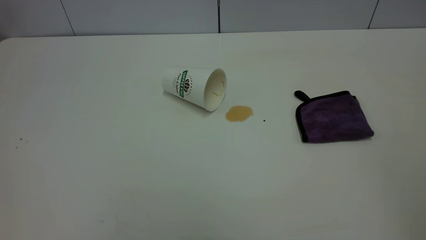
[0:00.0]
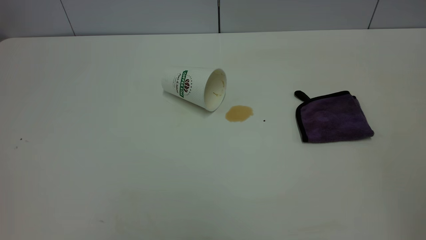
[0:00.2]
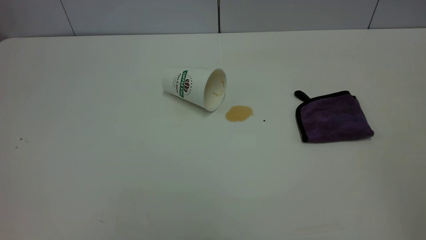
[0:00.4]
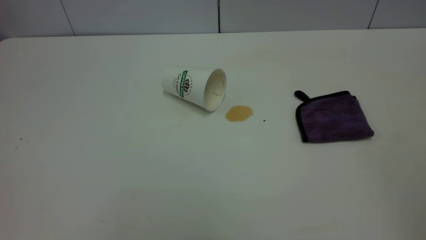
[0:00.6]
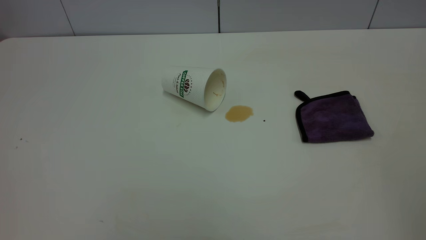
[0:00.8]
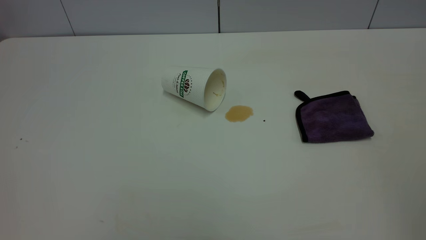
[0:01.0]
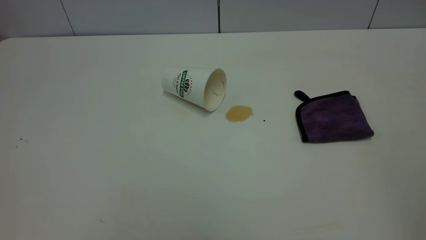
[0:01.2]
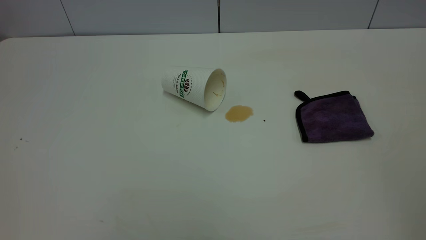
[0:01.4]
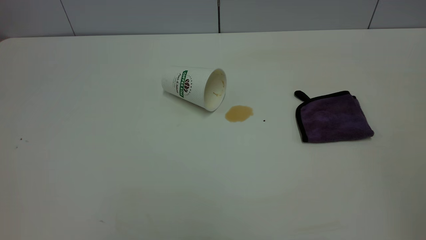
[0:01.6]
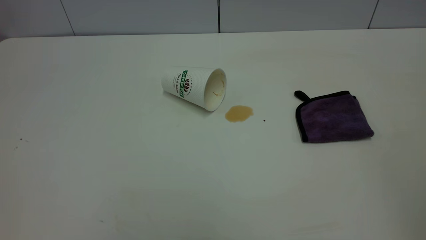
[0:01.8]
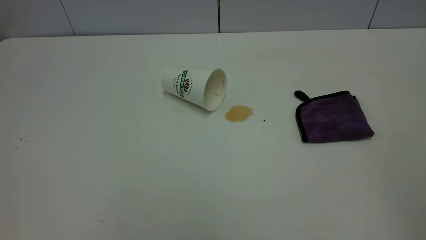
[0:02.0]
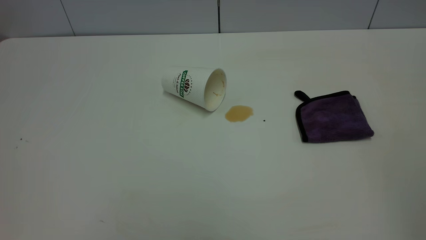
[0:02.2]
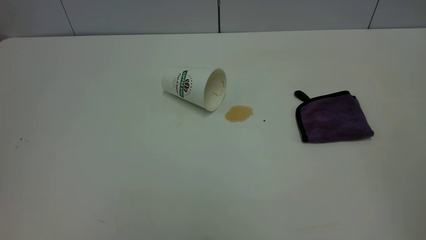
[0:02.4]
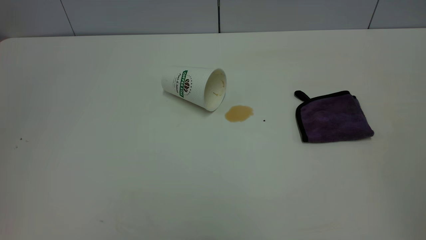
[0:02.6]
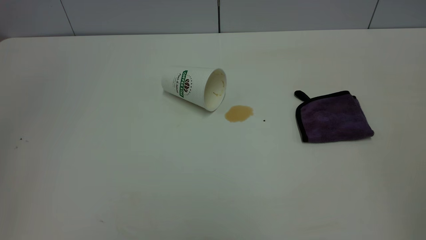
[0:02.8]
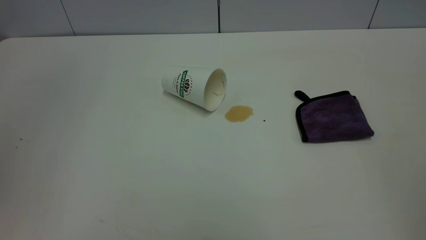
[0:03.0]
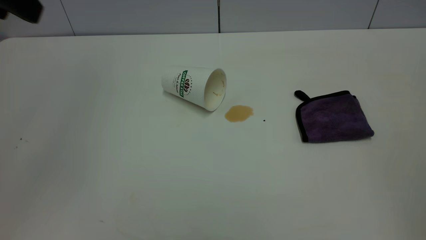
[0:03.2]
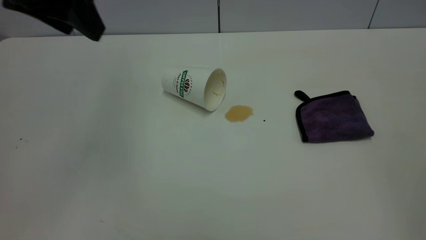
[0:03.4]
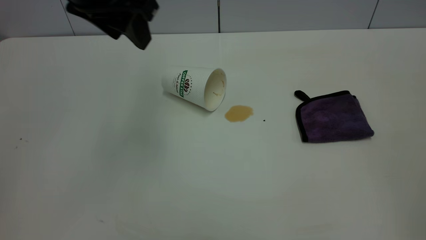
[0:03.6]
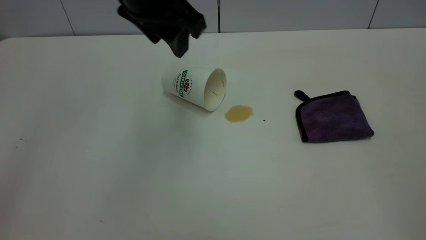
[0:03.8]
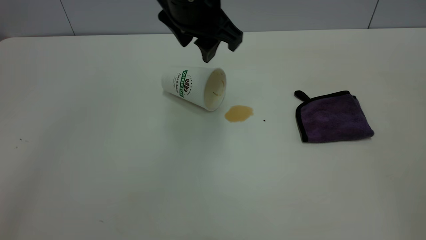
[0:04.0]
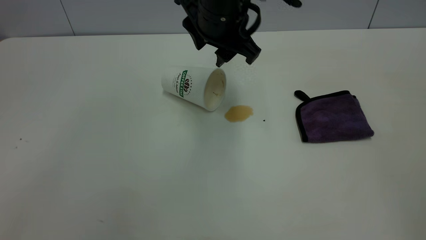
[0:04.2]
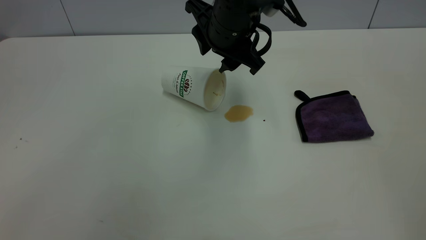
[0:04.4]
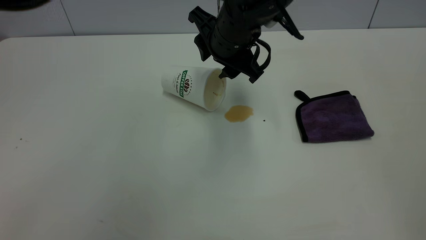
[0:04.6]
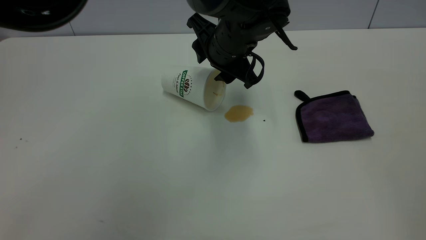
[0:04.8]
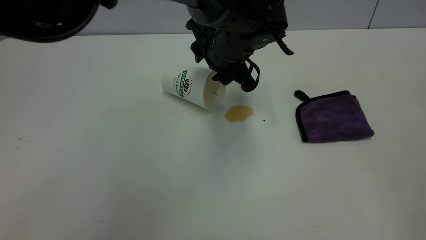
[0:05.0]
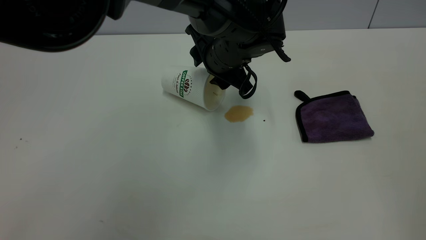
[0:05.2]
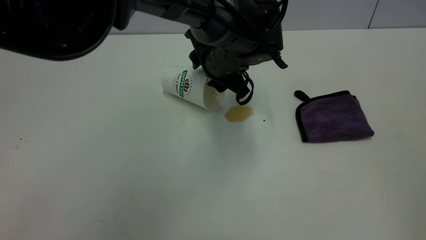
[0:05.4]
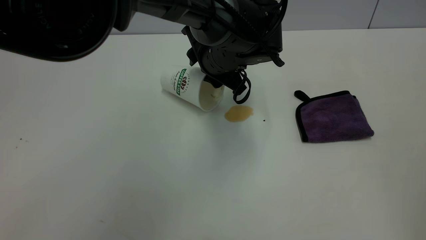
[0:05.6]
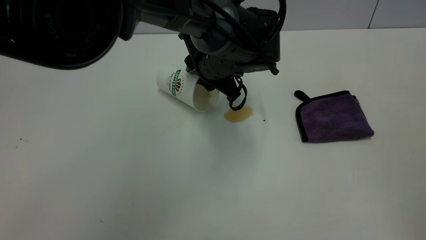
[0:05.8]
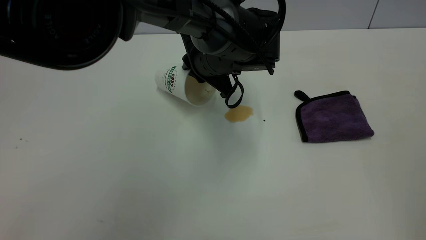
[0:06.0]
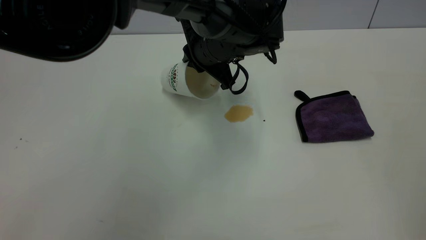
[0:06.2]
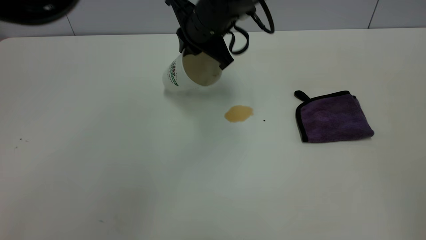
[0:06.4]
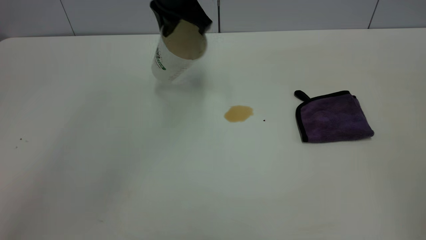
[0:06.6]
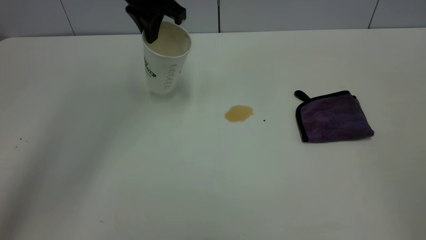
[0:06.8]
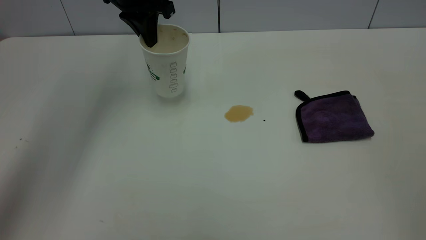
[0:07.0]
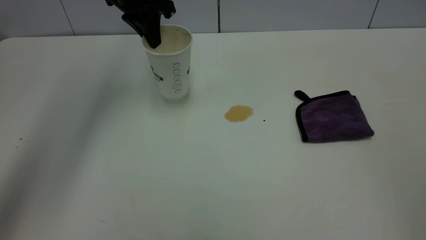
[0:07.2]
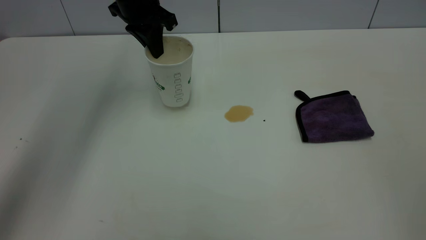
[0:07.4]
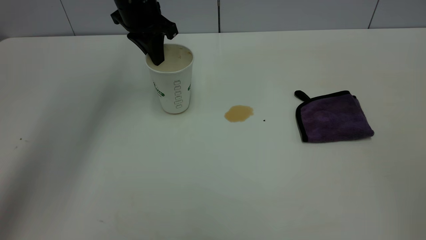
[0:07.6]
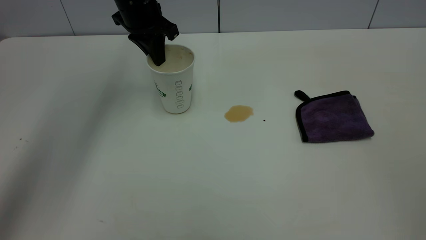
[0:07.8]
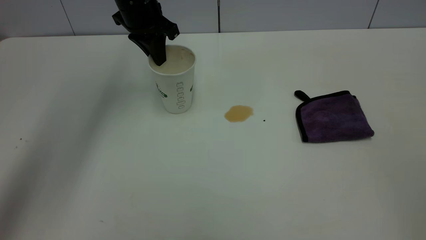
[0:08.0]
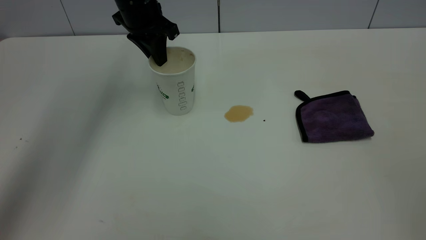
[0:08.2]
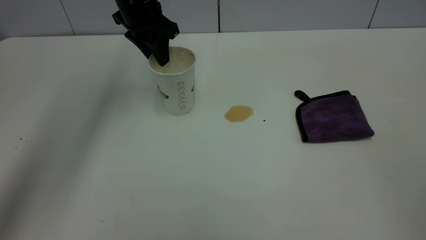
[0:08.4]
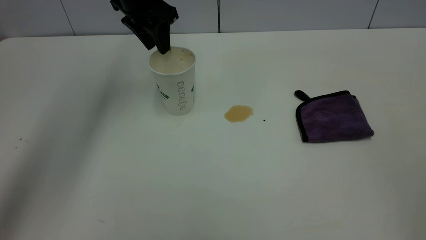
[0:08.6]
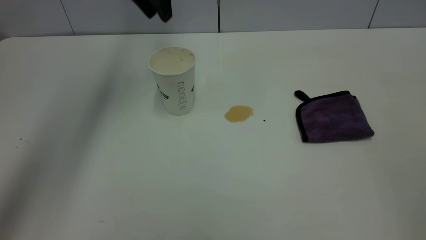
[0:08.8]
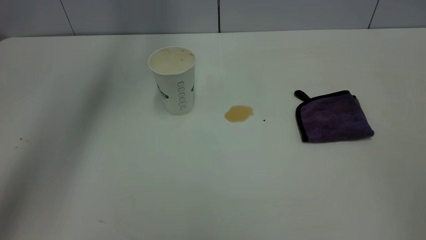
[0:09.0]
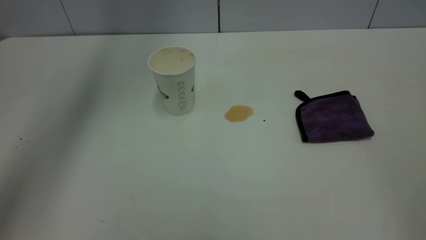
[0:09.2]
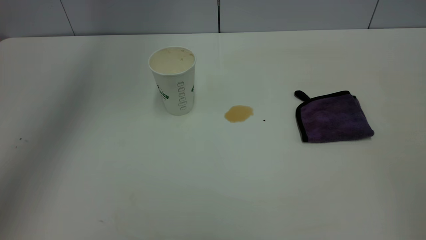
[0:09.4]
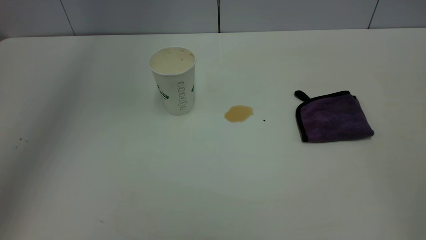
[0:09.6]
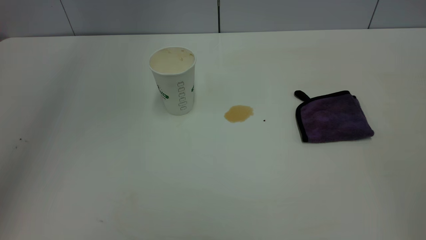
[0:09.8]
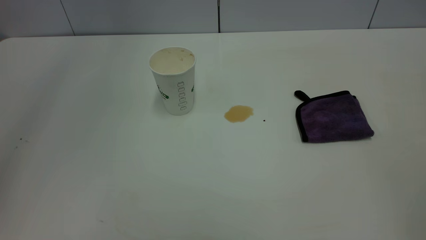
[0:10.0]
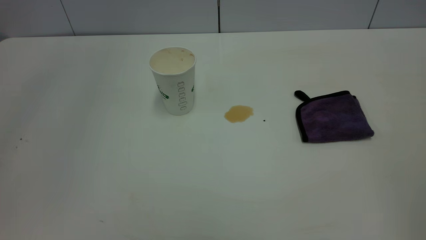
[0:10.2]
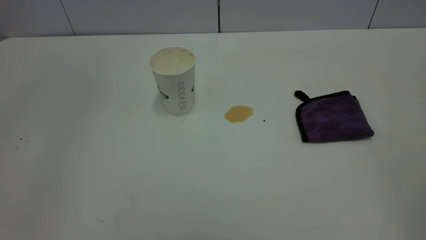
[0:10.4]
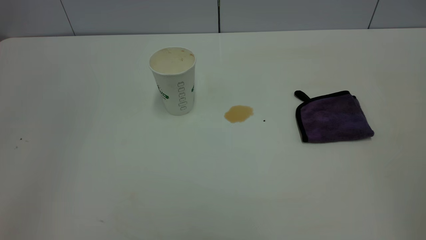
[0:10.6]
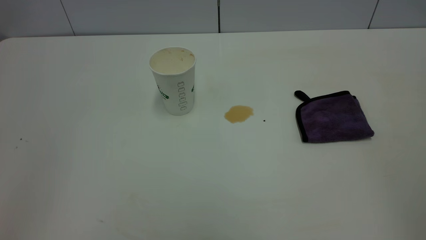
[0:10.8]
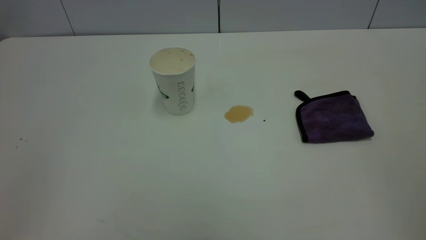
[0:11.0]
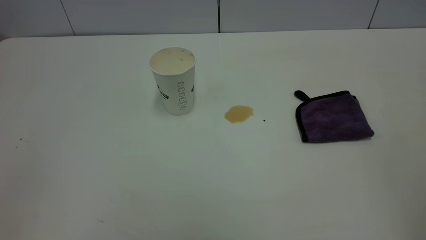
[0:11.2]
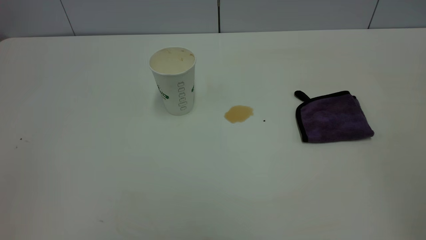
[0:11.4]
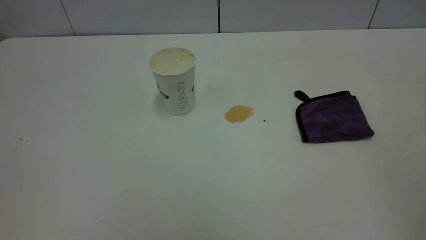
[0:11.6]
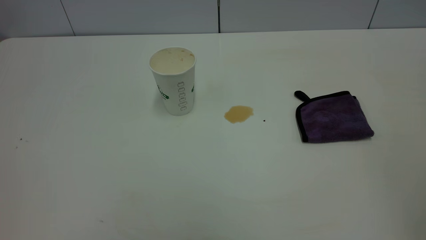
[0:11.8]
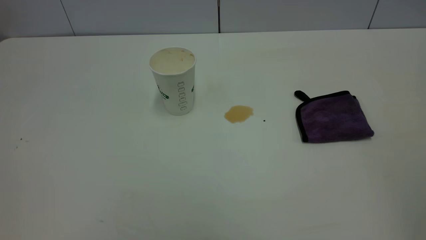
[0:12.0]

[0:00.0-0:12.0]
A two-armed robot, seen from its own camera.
Task of the whole recording: the left gripper pick up the fallen cup and place it upright, the right gripper grasp the purple rag and wipe the tea stain on the table, the right gripper put the purple rag back in its original position.
Step, 0:00.0 to 0:08.6: Stand the paper cup upright.
0:00.0 to 0:01.6: Both grippers stay about where they are.
0:03.0 to 0:04.4: The left gripper moves to the right, downward and forward, roughly 40 cm.
0:04.4 to 0:06.0: The left gripper heads downward, covering roughly 5 cm, and closes.
0:06.0 to 0:07.6: The left gripper moves to the left, forward and upward, approximately 20 cm.
0:07.6 to 0:09.0: The left gripper is displaced upward by roughly 15 cm, and opens its fingers.
0:09.0 to 0:10.4: The left gripper shifts some 35 cm backward.

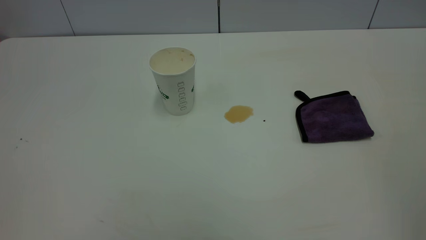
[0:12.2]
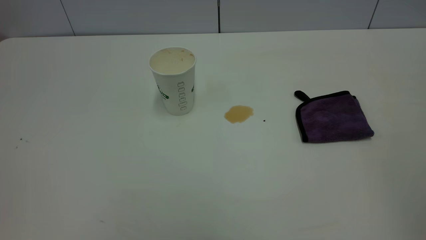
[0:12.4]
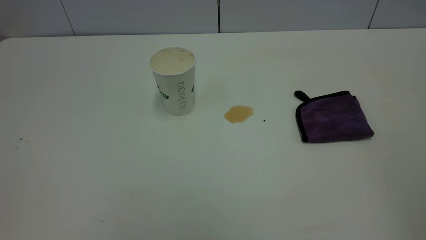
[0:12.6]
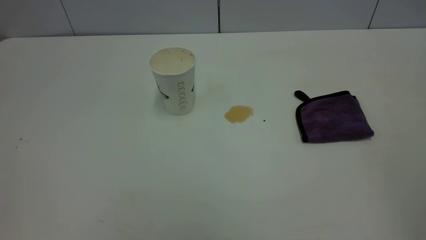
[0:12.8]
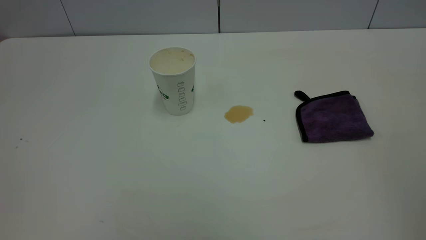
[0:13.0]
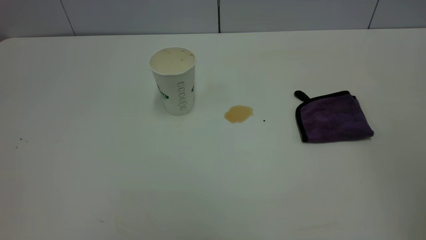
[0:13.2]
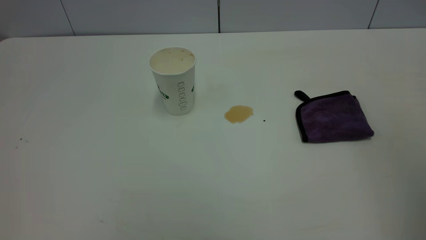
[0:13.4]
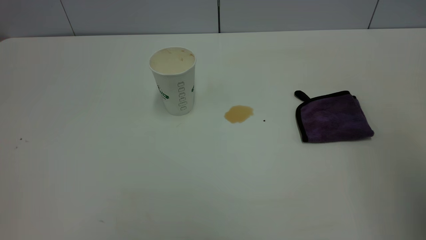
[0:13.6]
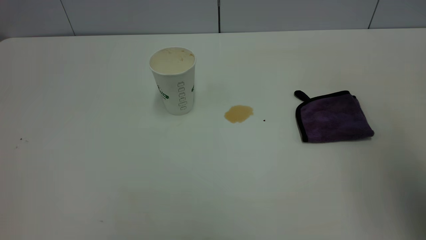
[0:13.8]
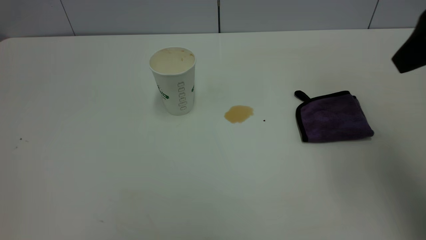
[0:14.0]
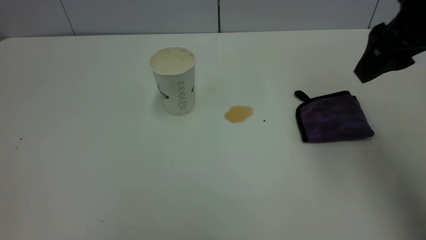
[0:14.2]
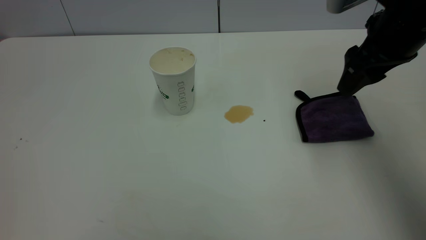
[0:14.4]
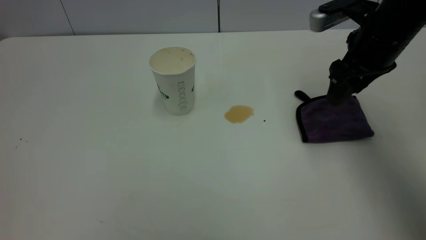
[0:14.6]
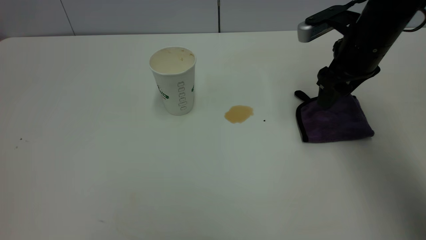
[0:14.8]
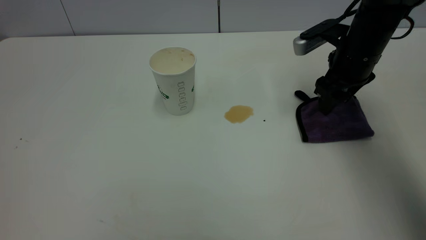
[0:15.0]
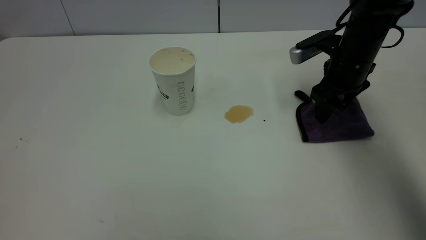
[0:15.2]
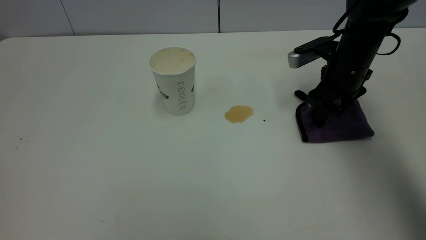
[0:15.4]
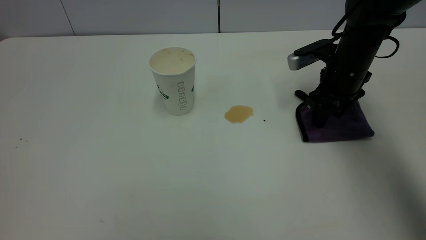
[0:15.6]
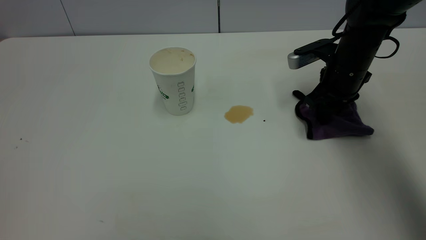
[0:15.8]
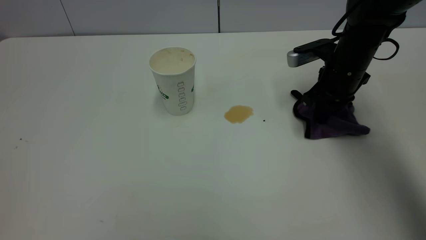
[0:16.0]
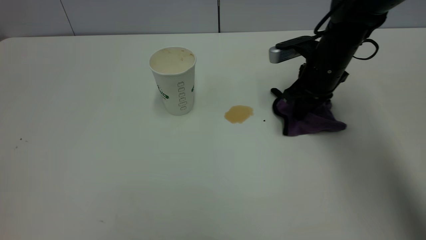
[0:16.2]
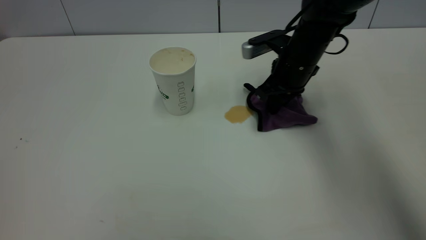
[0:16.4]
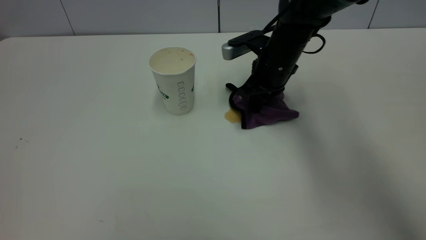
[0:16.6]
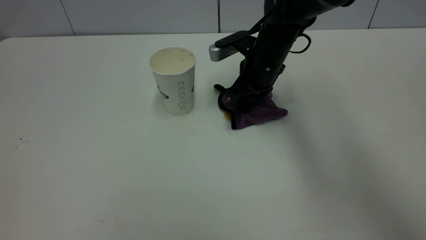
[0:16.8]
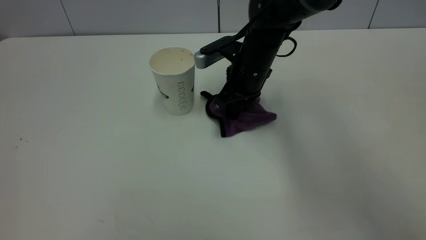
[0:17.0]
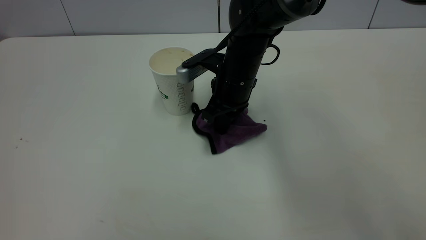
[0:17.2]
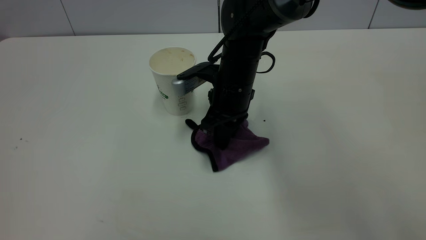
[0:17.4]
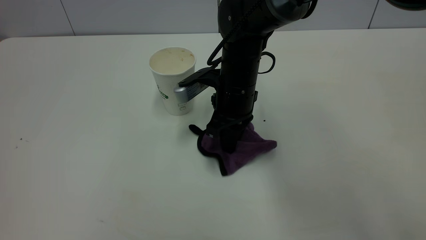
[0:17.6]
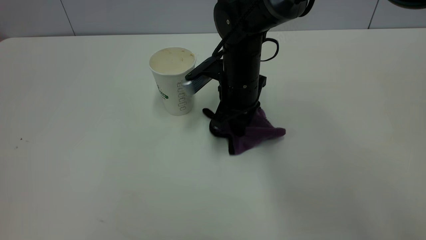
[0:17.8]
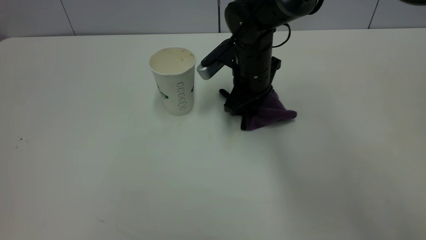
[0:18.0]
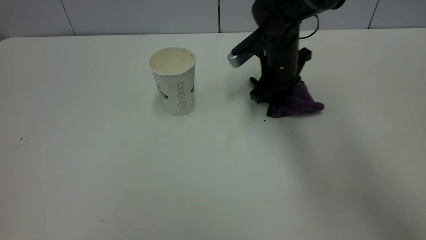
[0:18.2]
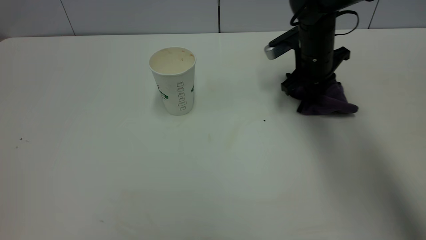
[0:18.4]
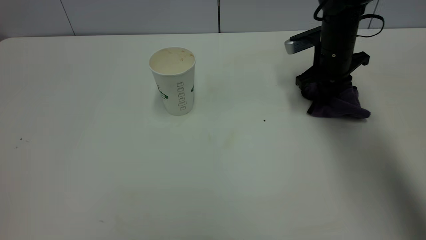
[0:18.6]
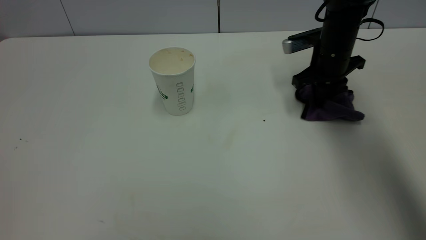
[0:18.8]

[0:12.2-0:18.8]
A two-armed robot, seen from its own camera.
Task of the whole recording: the left gripper pick up the fallen cup and place it upright, the right gripper grasp the purple rag and wipe the tea stain on the table, the right gripper put the purple rag back in its original position.
0:12.2 to 0:13.8: The right gripper shifts roughly 20 cm forward.
0:13.8 to 0:15.4: The right gripper moves downward and forward, some 30 cm.
0:15.4 to 0:17.2: The right gripper travels to the left by roughly 20 cm, and closes.
0:17.2 to 0:18.8: The right gripper travels to the right by roughly 15 cm.
